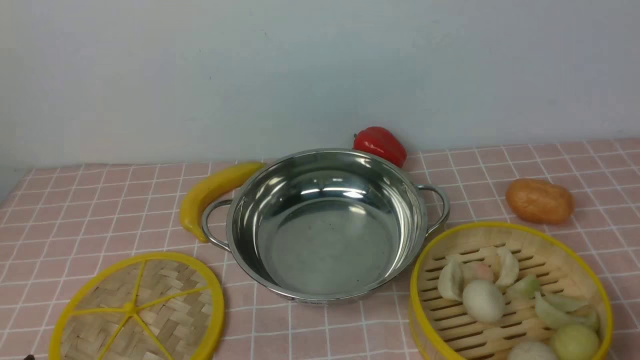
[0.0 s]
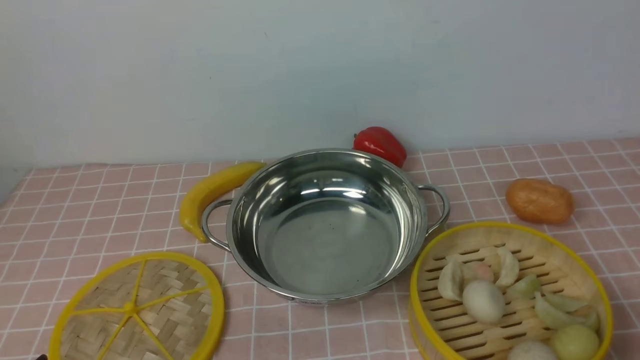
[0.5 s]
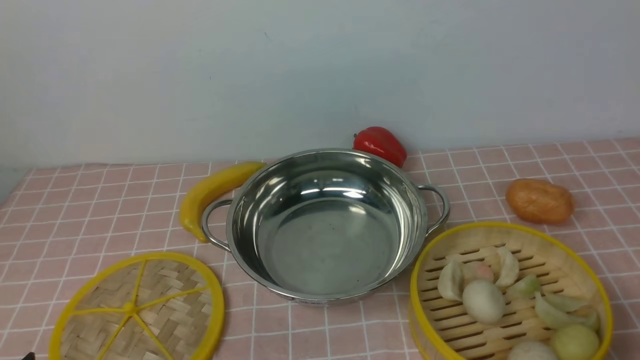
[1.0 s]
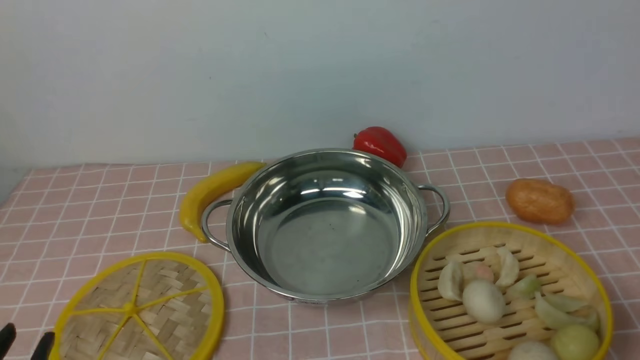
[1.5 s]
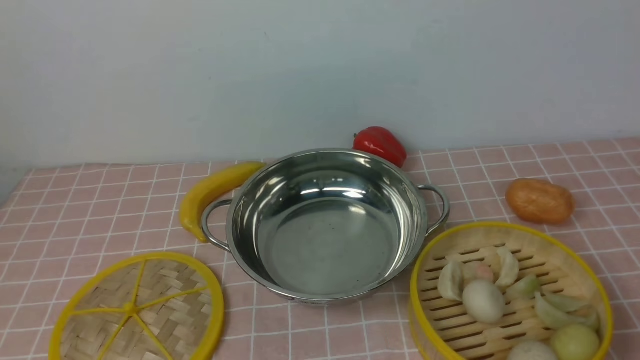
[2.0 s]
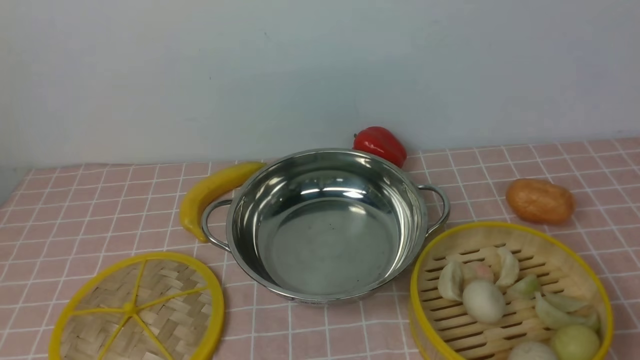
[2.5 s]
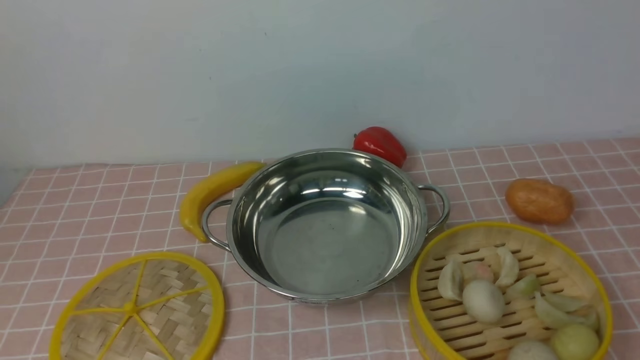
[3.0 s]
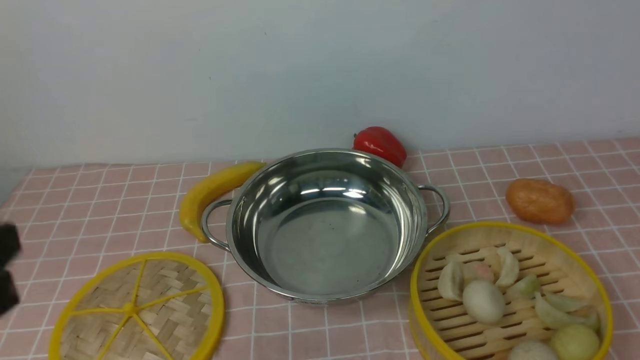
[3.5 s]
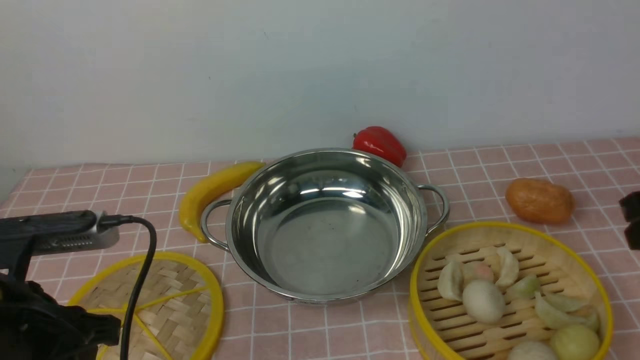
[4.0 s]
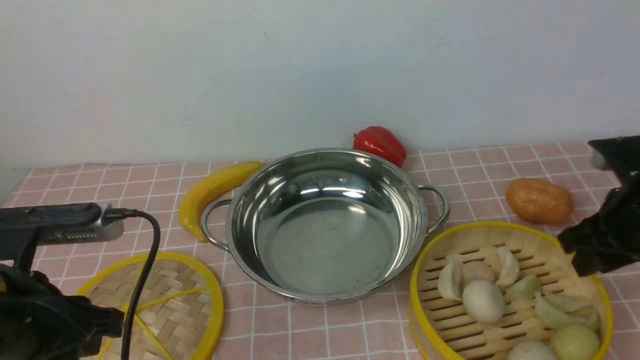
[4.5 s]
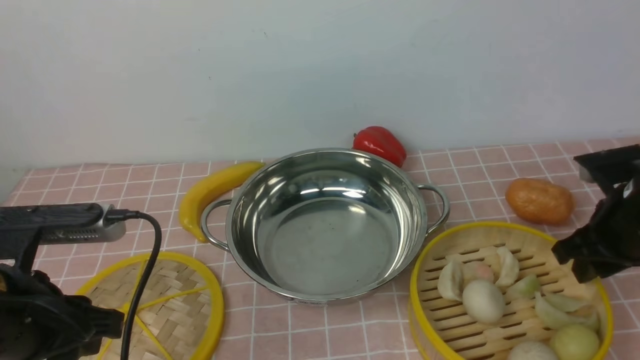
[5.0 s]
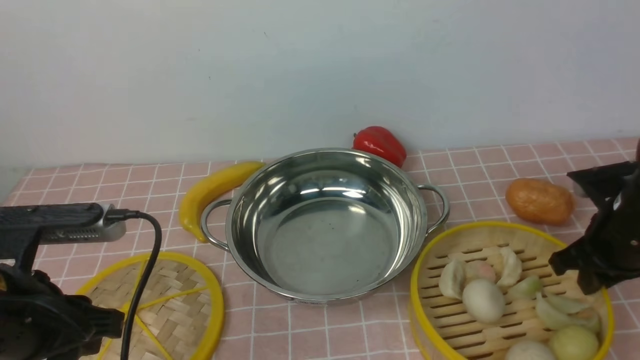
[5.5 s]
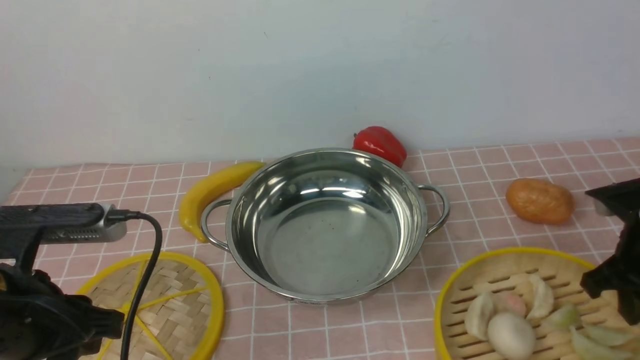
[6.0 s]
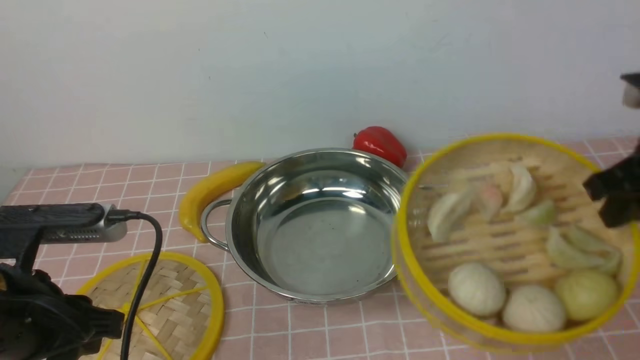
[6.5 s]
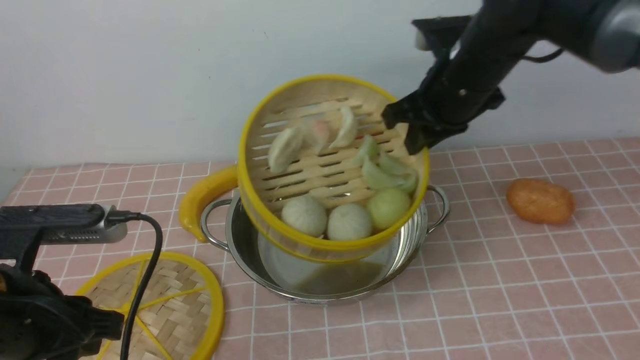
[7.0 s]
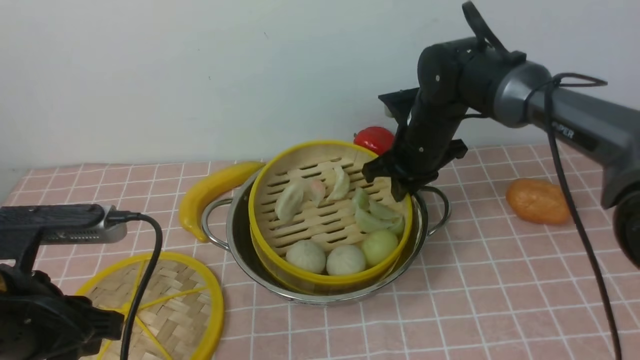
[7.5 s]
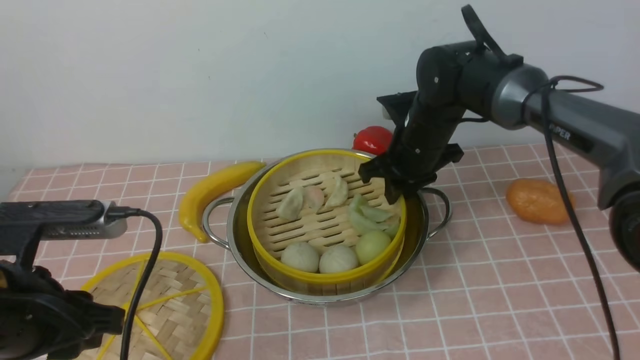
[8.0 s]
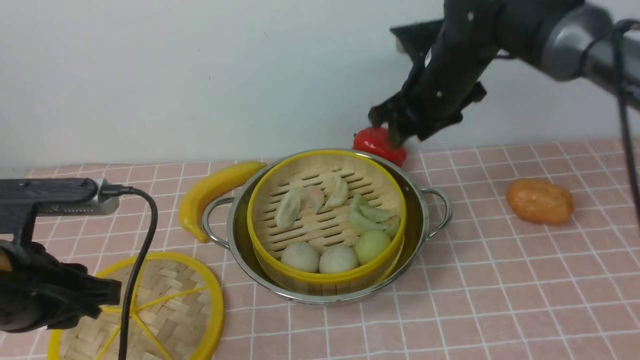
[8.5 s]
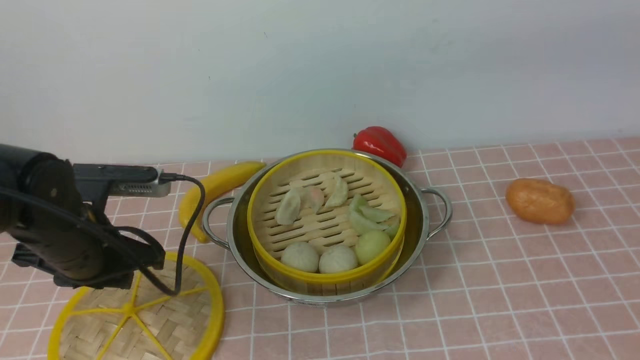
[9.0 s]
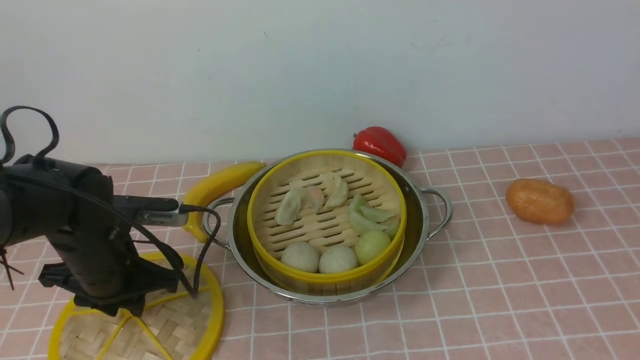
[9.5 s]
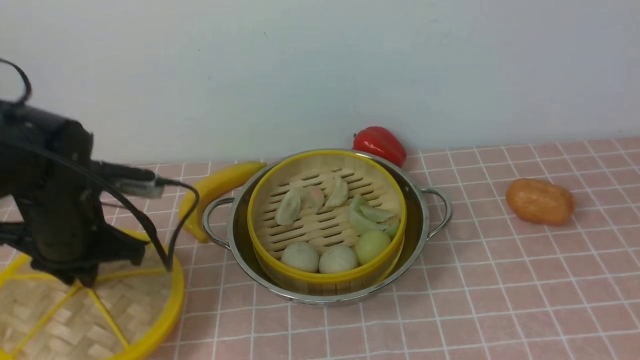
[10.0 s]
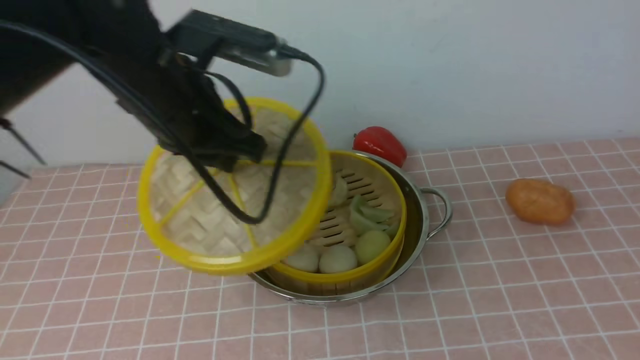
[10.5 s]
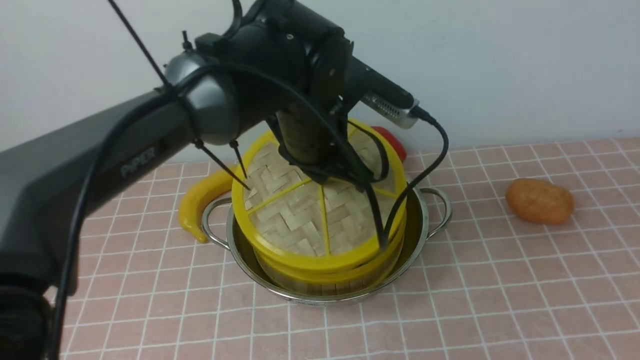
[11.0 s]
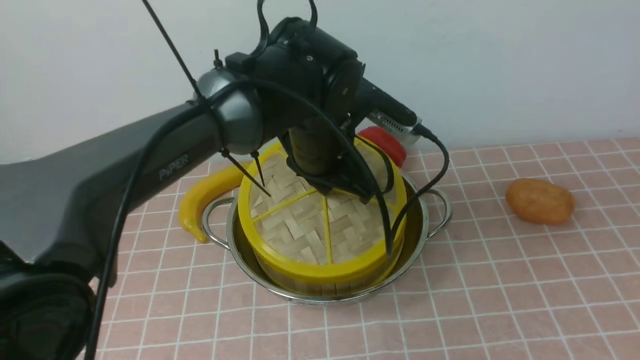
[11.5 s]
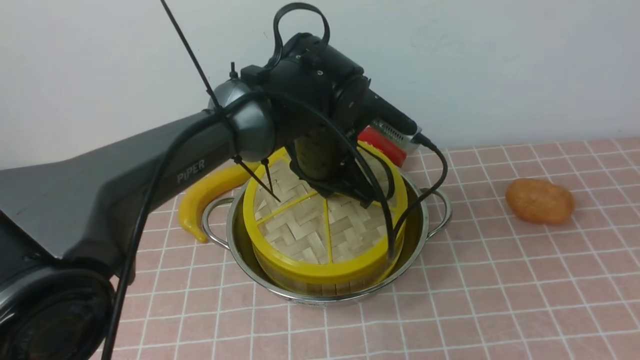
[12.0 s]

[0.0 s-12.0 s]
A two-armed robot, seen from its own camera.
Task of the whole recording: place the steamer in the pot on the pink tablecloth, and put the lid on the steamer.
Step, 0.0 to 6.0 s: use the right arm to lift the steamer closest to it.
Step, 6.5 to 8.0 s: use the right arm to put the steamer into the iron steamer pot in the middle.
Step, 8.5 to 9.5 s: use the left arm to lift the lid of the steamer.
2.0 to 4.0 s: The left gripper travels forward by about 10 cm.
4.0 to 6.0 s: The right gripper moves downward, some 10 cm, and closes.
6.0 to 8.0 s: The right gripper goes roughly 25 cm to the left and forward, and opens.
8.0 to 10.0 s: The right gripper is displaced backward, upward and to the right by about 60 cm, and opens up; the left gripper heads forward, covering about 15 cm.
10.0 to 12.0 s: The left gripper goes approximately 25 cm to the right.

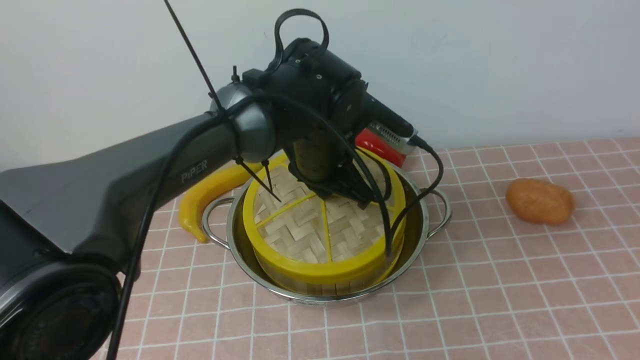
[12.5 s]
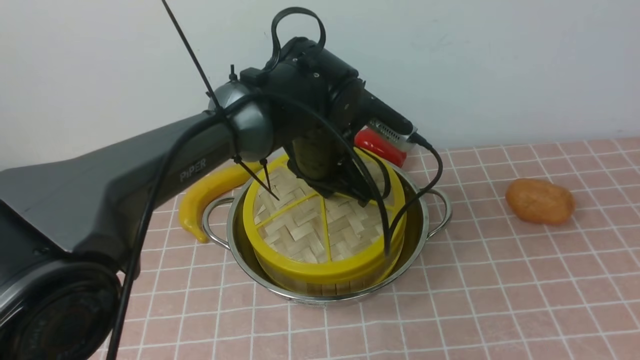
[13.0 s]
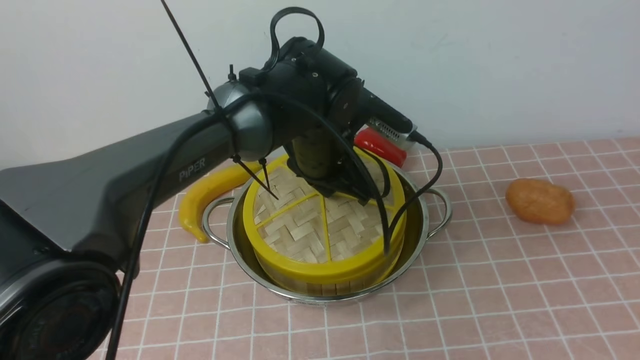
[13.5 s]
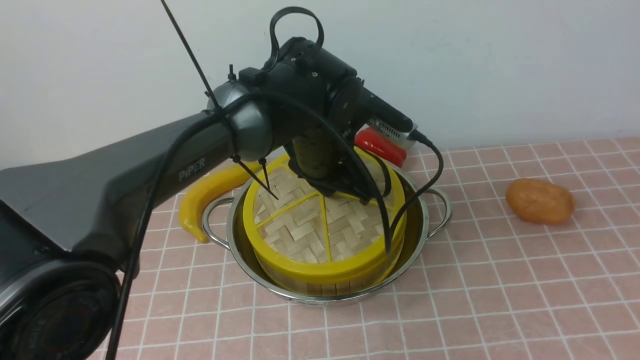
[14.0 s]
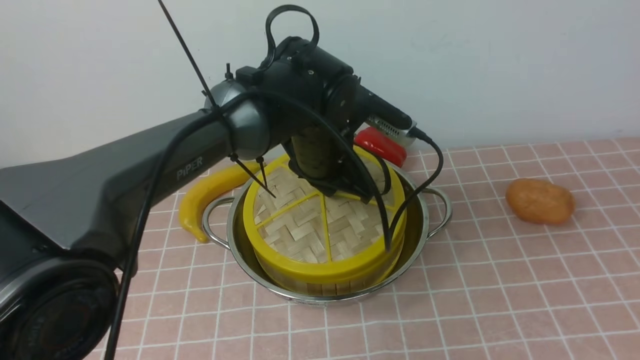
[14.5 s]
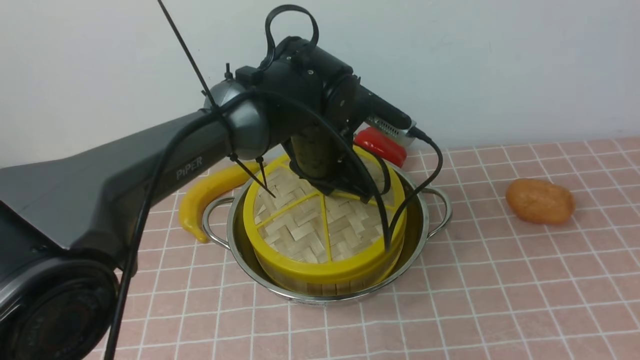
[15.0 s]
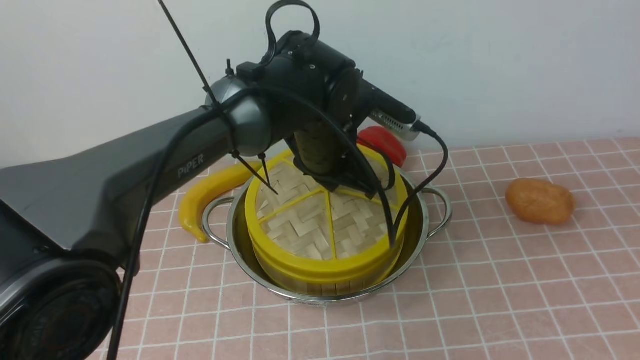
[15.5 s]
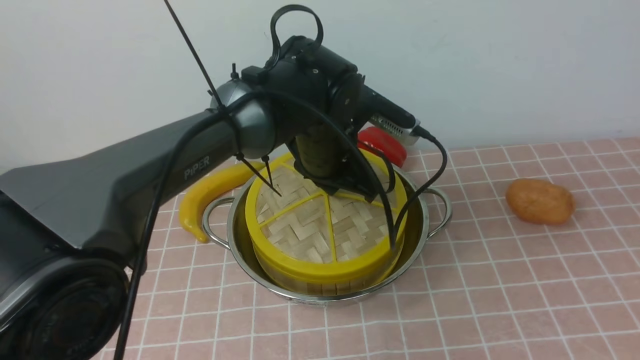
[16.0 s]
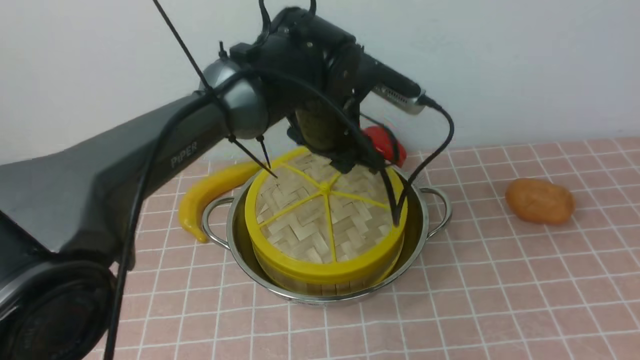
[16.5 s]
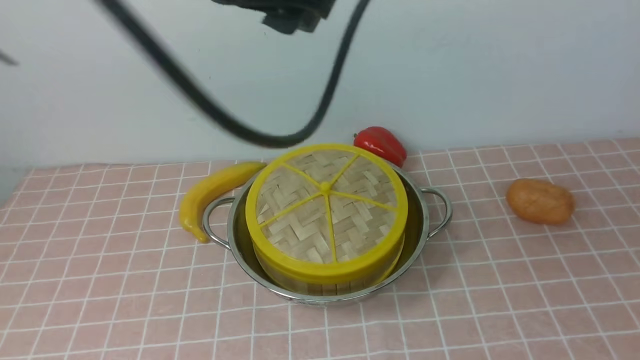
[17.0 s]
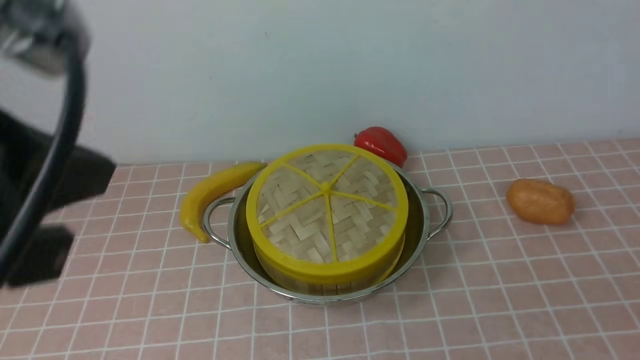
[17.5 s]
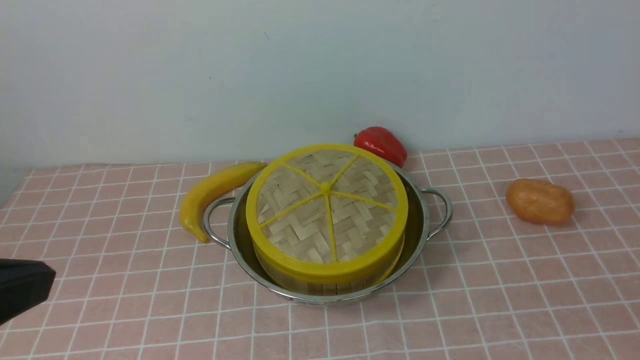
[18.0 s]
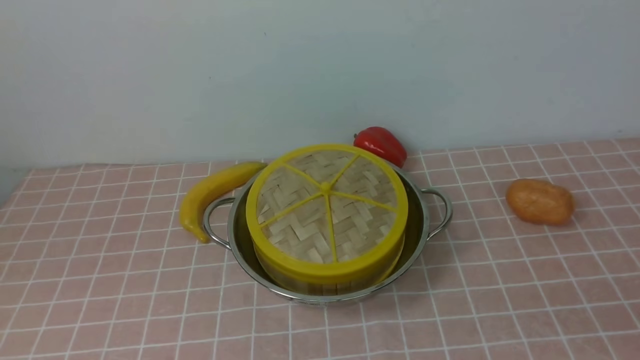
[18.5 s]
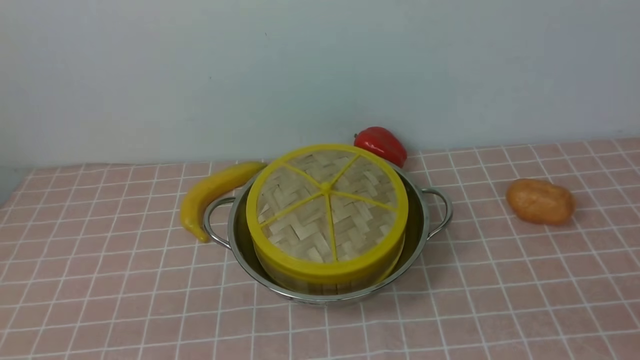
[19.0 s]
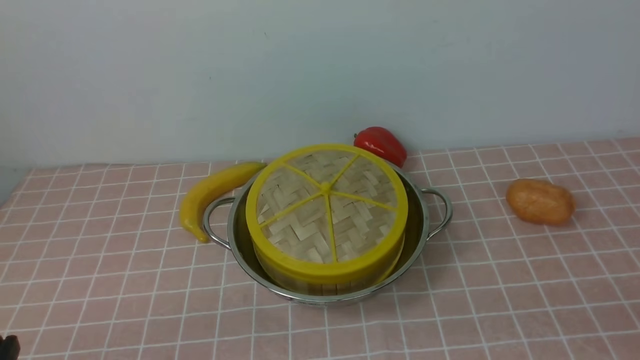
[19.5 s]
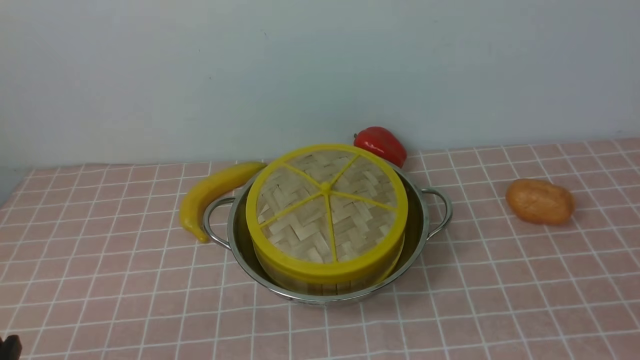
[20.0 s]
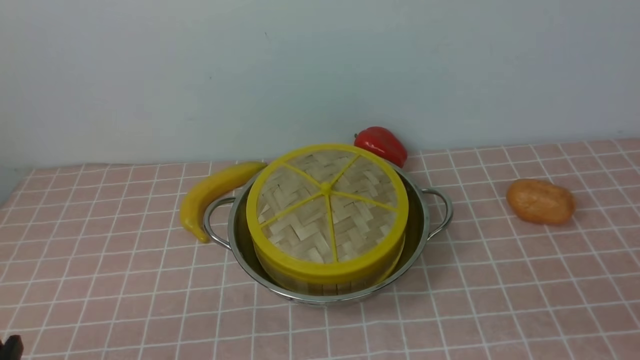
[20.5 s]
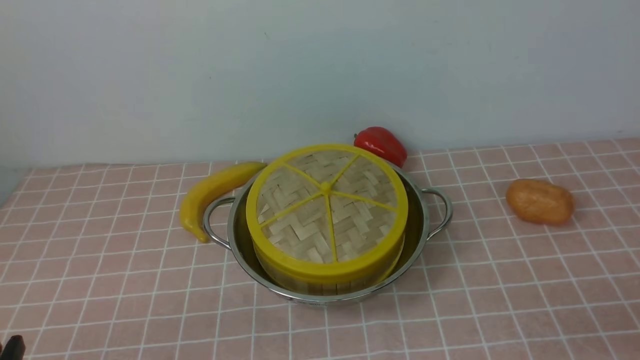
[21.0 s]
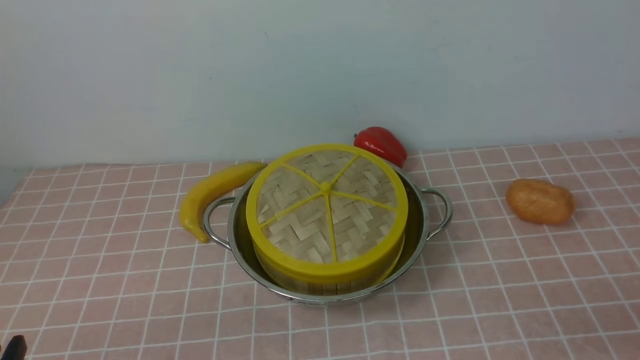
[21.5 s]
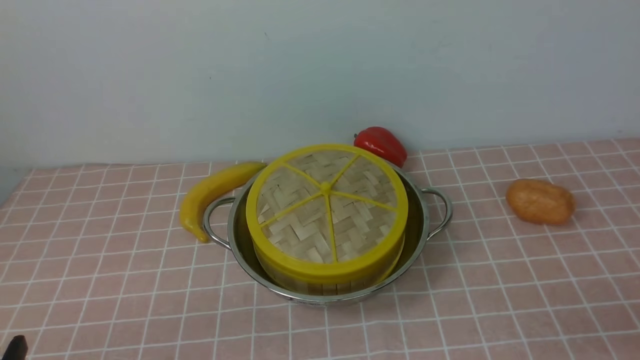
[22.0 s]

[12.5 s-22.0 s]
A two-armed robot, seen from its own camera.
Task of the whole recording: place the steamer in the pot on the pink tablecloth, and put the lid on the steamer.
Step, 12.5 to 16.0 s: use the left arm to place the steamer lid on the steamer.
12.5 to 14.5 s: Both grippers stay about where they are.
14.5 to 16.5 s: The left gripper travels upward by about 5 cm, and opens its fingers.
16.5 to 18.0 s: The left gripper travels backward and to the left by roughly 35 cm, and closes up; the right gripper shifts roughly 10 cm downward, and closes up.
18.0 to 20.0 s: The left gripper goes about 20 cm downward.
